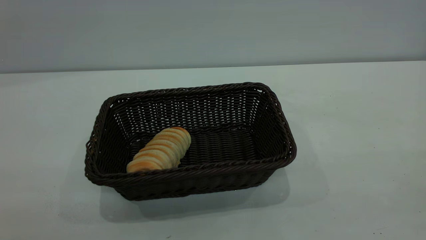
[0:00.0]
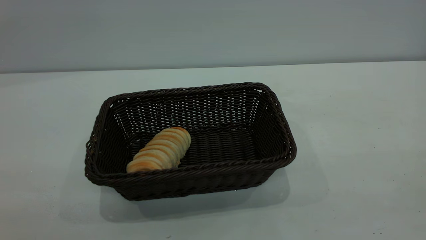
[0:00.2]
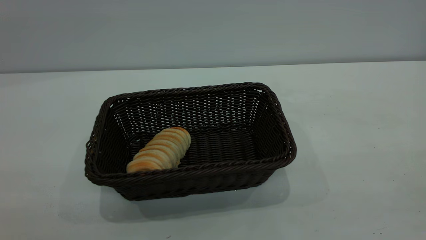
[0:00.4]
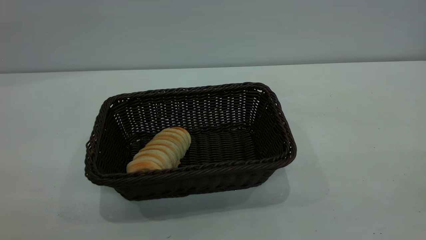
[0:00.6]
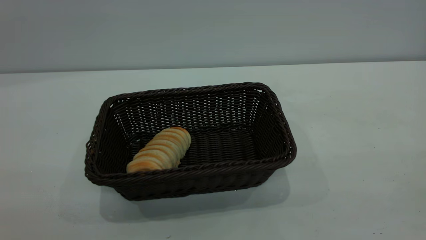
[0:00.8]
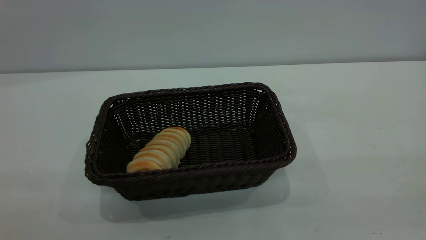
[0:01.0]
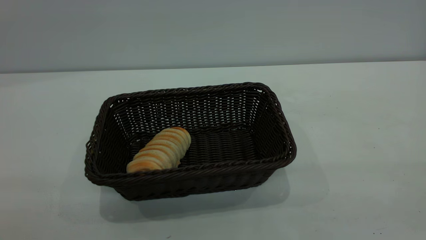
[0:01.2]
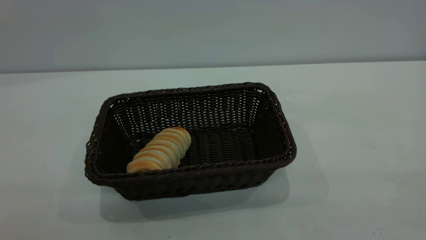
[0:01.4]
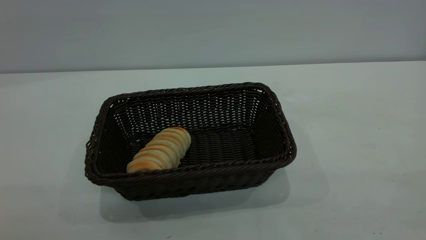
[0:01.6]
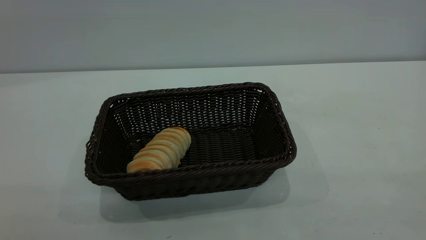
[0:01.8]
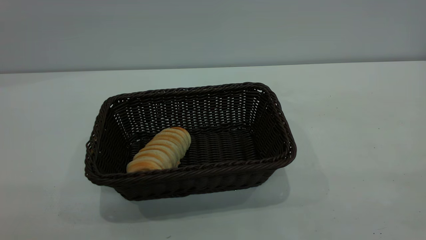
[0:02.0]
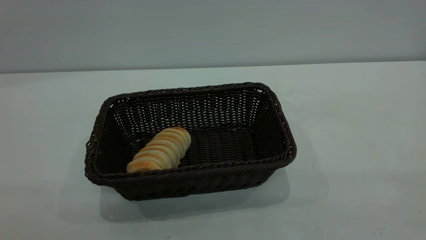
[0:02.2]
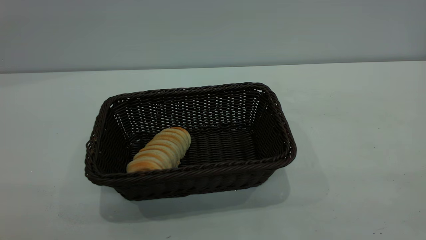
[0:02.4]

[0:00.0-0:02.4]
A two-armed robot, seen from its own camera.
Task of the whole recording: One hand grasps the black basket and places it in the middle of the table, while the other hand picks up the long bread and puts it into the black basket.
0:01.2 to 0:02.4: Neither gripper changes place.
